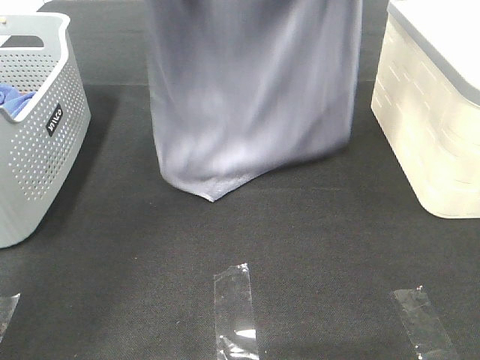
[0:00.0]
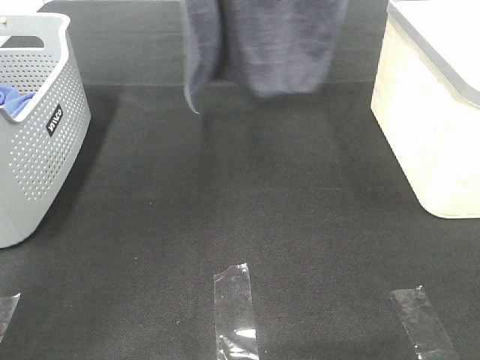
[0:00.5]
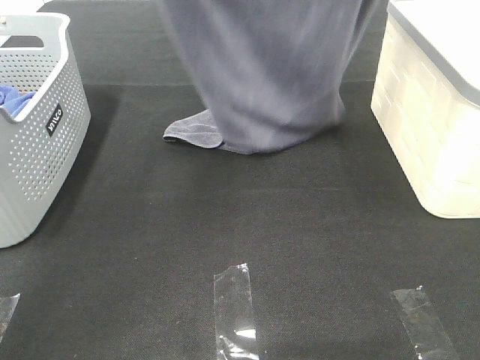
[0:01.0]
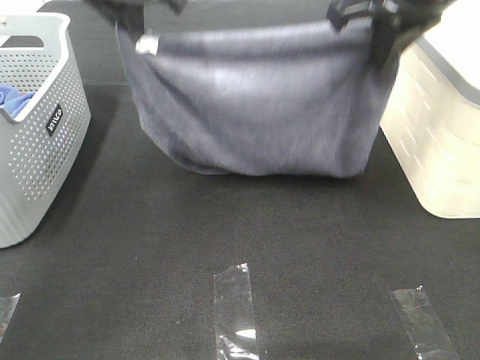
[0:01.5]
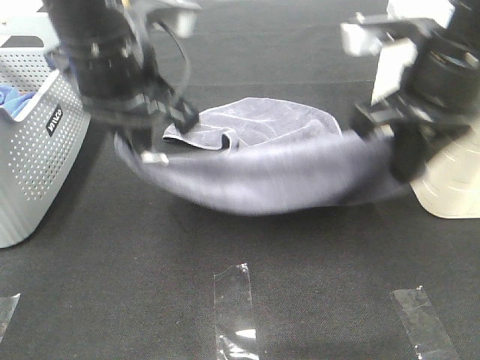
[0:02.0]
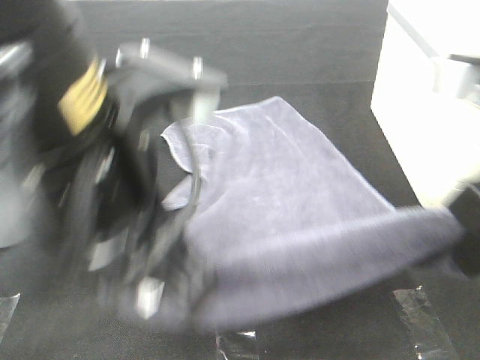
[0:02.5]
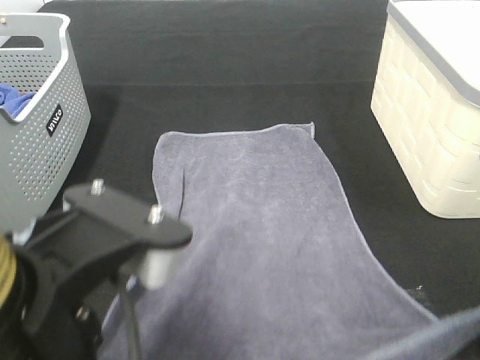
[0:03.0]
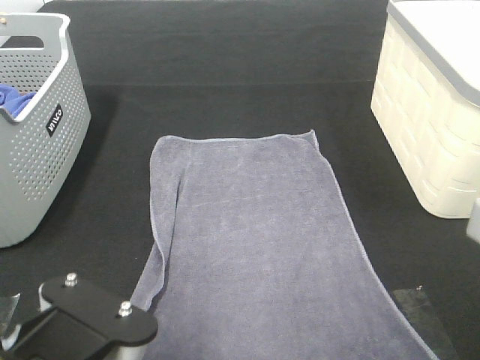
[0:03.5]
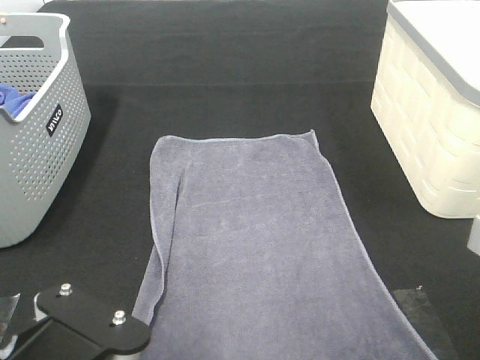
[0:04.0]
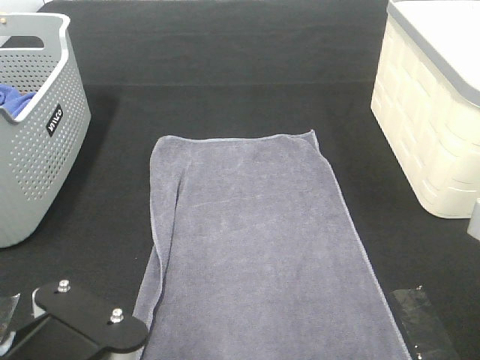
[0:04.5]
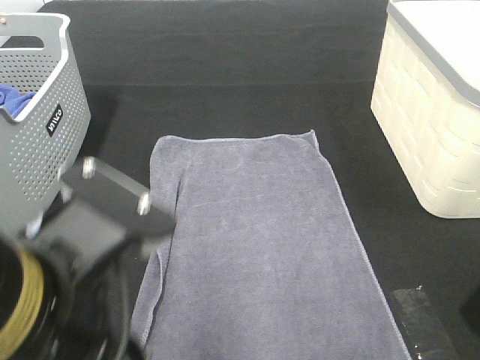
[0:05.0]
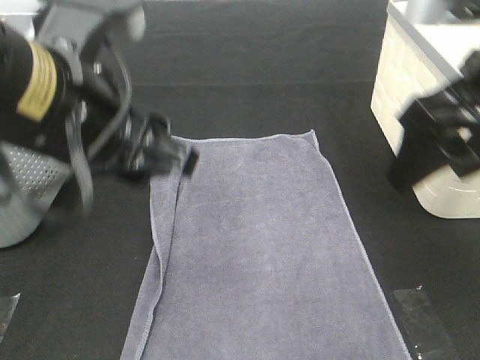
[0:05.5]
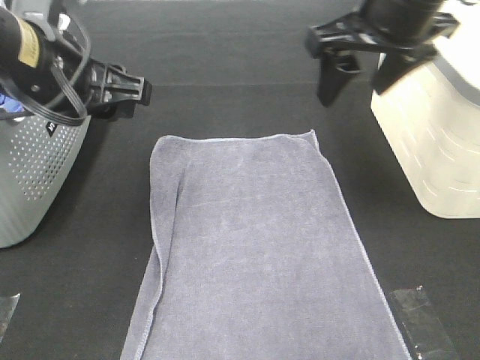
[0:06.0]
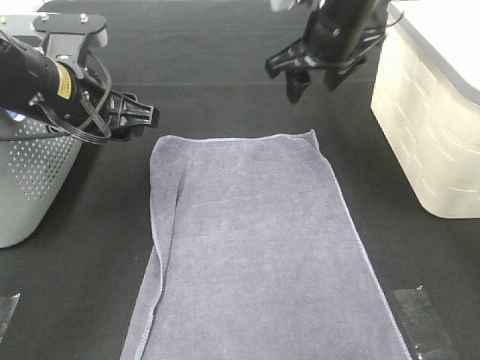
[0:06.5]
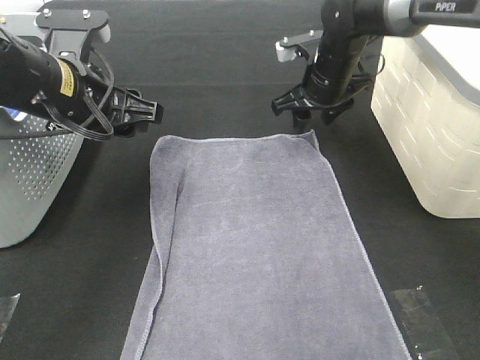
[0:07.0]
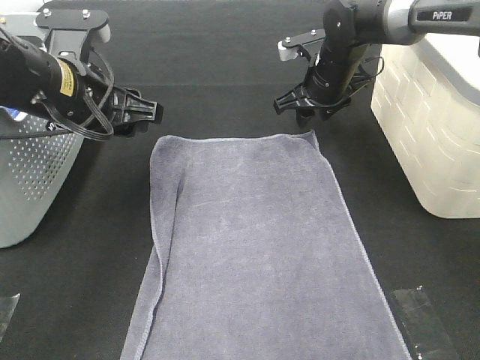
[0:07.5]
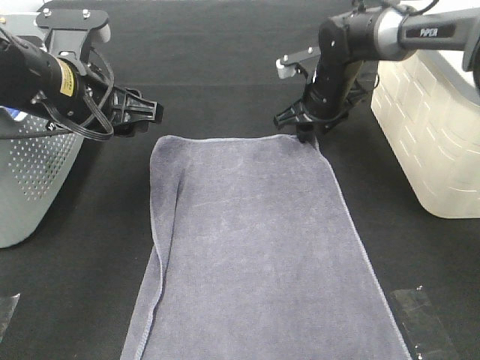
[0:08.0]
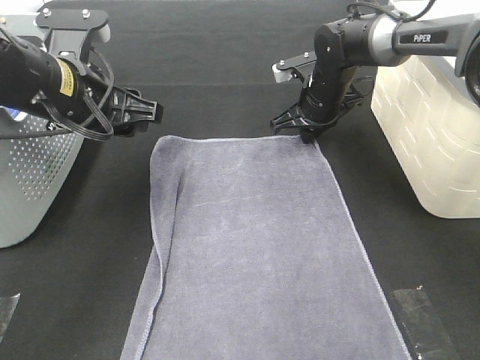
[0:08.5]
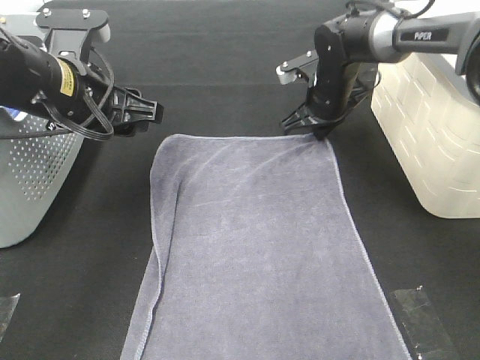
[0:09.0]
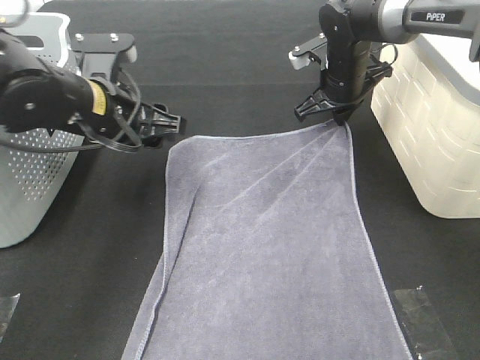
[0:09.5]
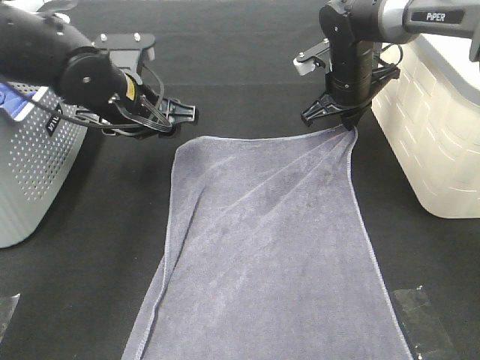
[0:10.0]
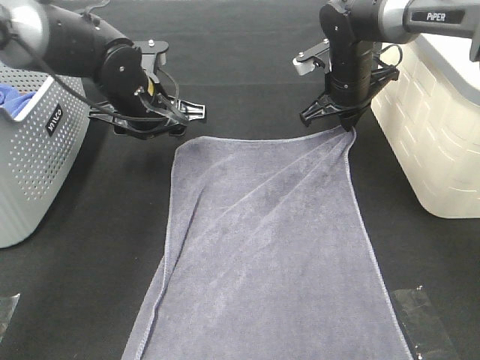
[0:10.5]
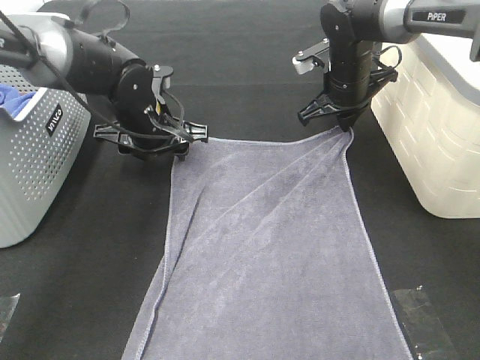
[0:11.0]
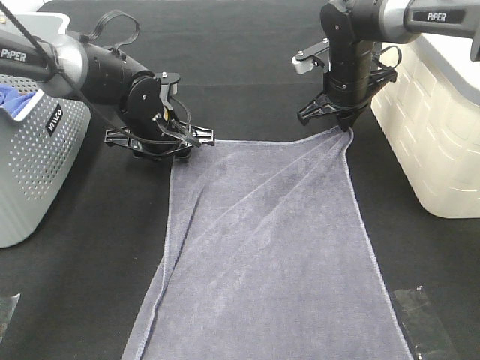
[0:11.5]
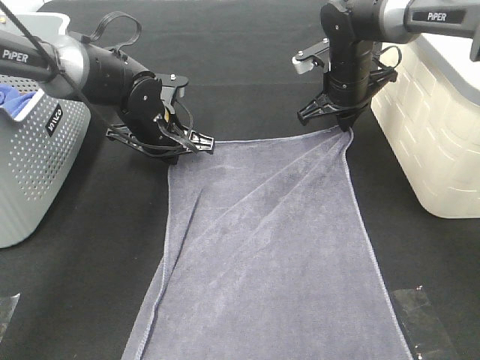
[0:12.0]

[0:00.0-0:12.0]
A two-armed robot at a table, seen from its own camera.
Task of the whole recording: Remove the towel and place it.
Step, 0:00.0 to 0:08.0: Left hand:adjust the gray towel.
Step, 0:00.0 to 0:08.0: Right hand:adjust the gray towel.
0:00.0 to 0:02.0: The grippers both shift backward and downward by approximately 20 cm.
0:02.0 to 0:04.0: The two grippers go about 20 cm backward.
0:04.0 to 0:06.0: Both grippers move forward, about 25 cm. The left gripper opens up. Meanwhile the right gripper opens up.
0:06.0 to 0:08.0: The left gripper ends up roughly 5 cm from where it was; the right gripper moves downward and forward, about 25 cm.
0:08.0 to 0:10.0: The left gripper moves forward and downward, roughly 10 cm. The right gripper closes up.
0:10.0 to 0:12.0: The left gripper is displaced downward by some 5 cm, and closes up.

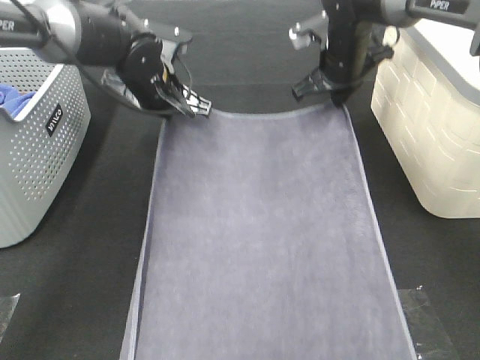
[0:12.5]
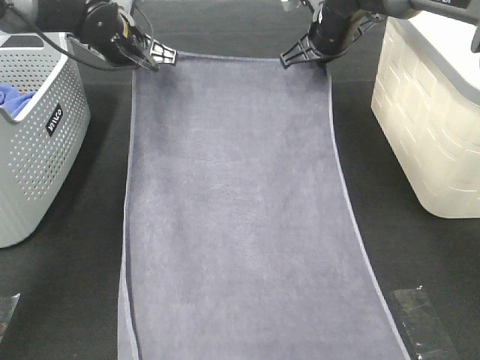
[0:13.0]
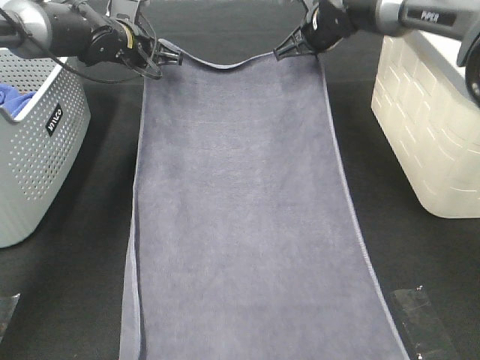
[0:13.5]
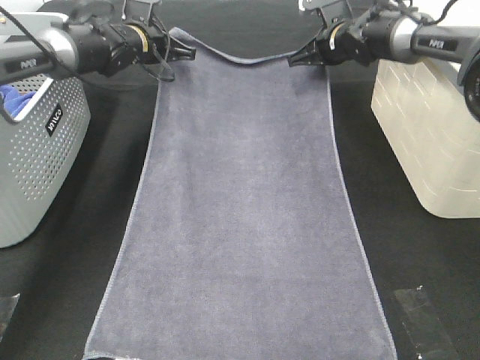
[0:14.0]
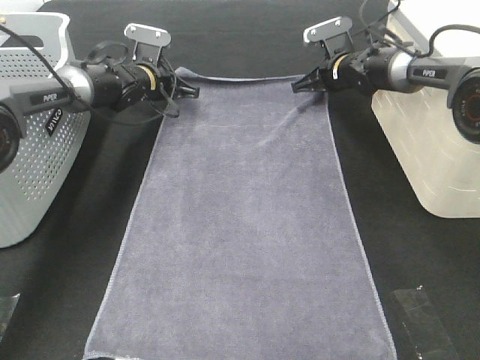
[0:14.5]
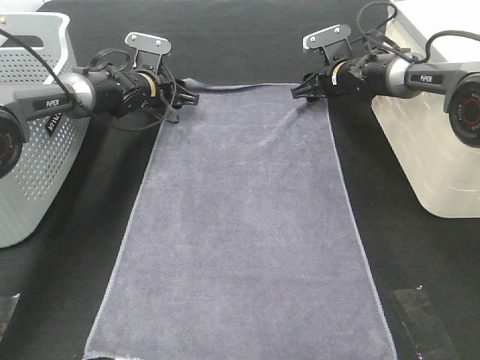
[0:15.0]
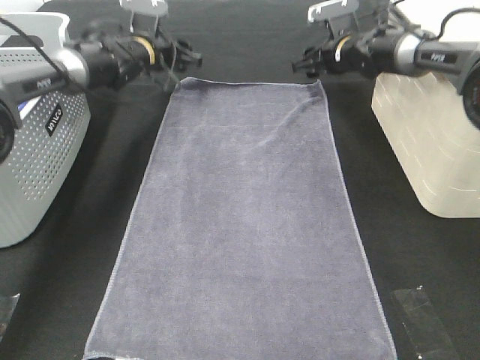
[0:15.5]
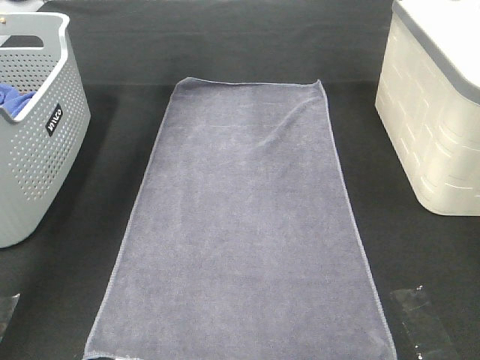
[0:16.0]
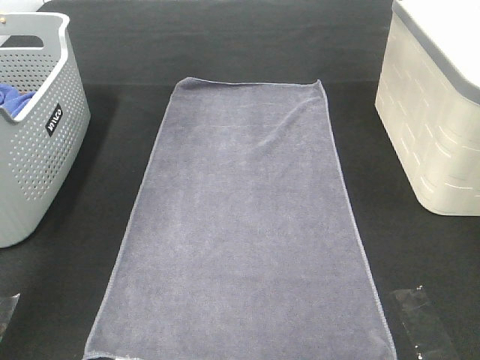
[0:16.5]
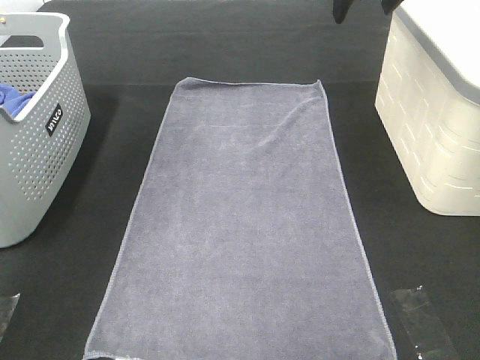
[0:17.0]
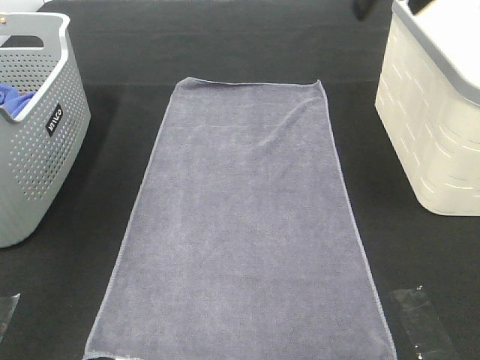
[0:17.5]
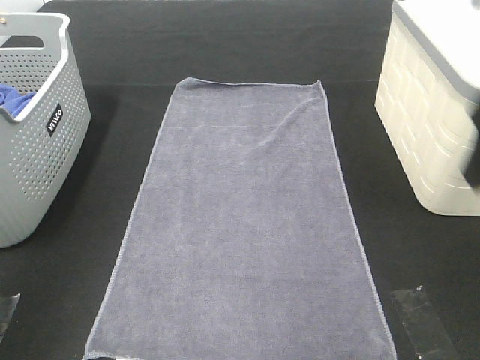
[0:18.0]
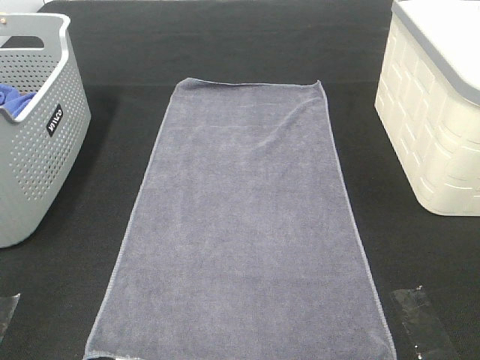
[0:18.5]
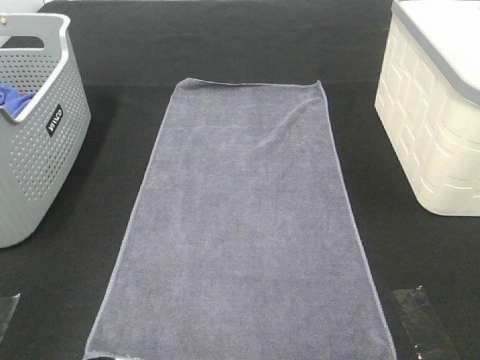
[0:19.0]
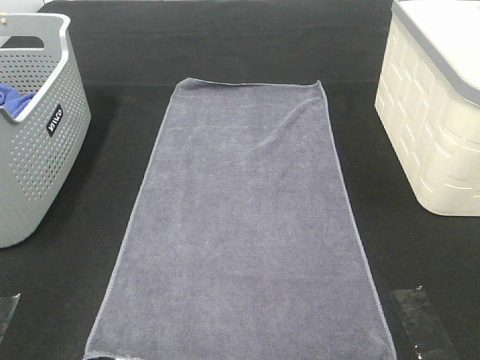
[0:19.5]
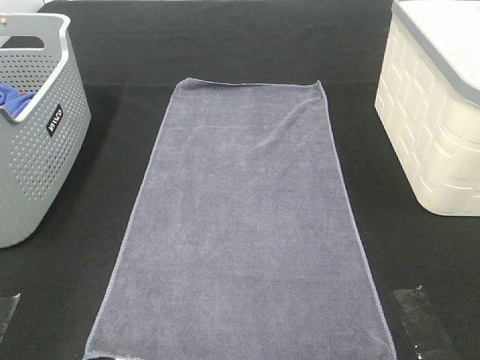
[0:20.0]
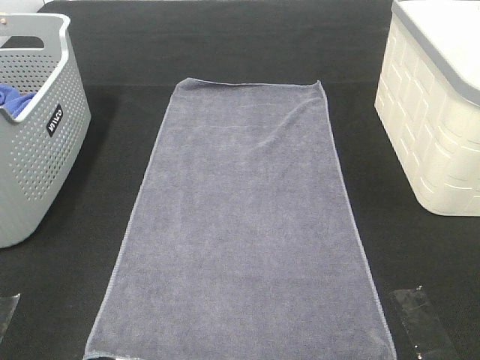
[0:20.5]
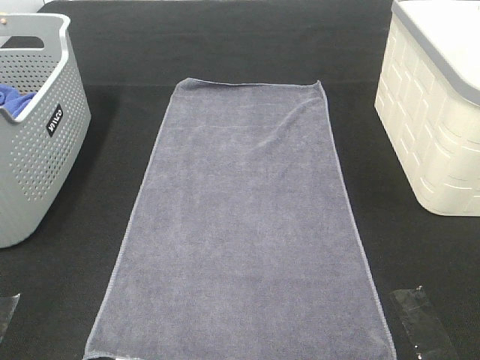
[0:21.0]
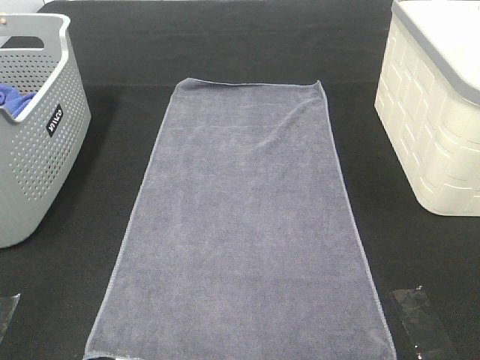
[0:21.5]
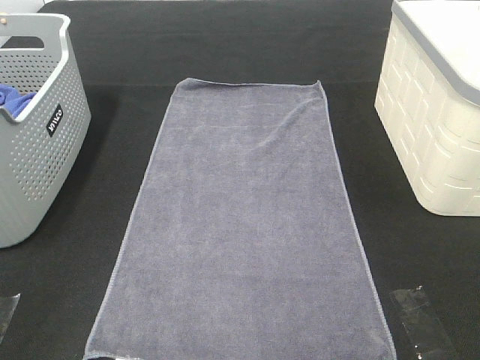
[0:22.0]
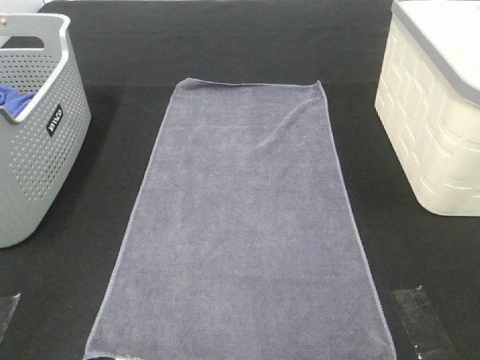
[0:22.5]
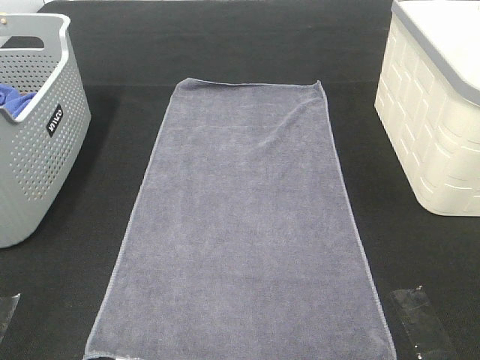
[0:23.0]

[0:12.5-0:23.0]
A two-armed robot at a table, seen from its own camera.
Task of the whole recording: Remove the towel and place it.
0:12.5 to 0:14.5: The right gripper heads downward and forward, covering roughly 10 cm; the left gripper moves forward and downward, about 15 cm.
0:14.5 to 0:16.5: Both grippers move upward, about 25 cm. The left gripper opens its fingers. The right gripper opens up.
0:16.5 to 0:19.0: The grippers both shift backward by approximately 50 cm.

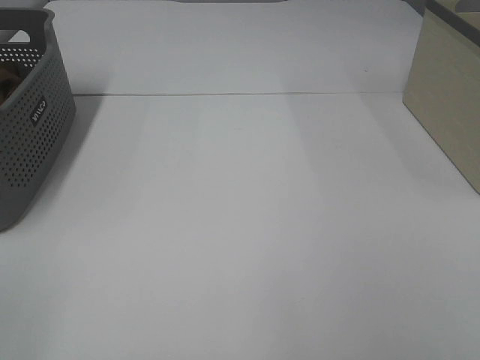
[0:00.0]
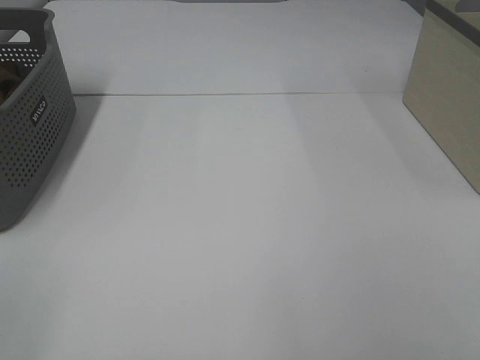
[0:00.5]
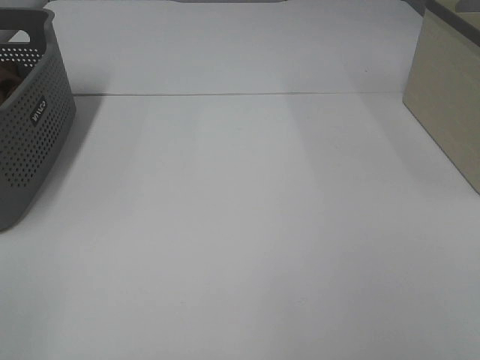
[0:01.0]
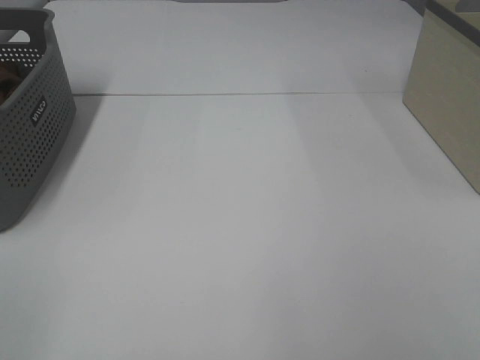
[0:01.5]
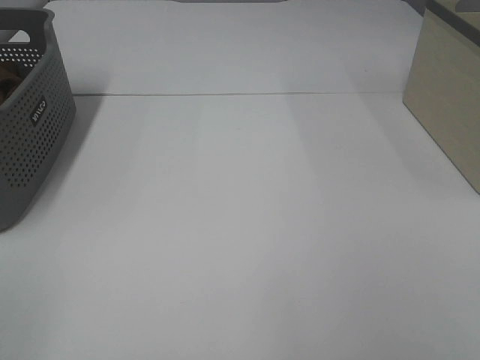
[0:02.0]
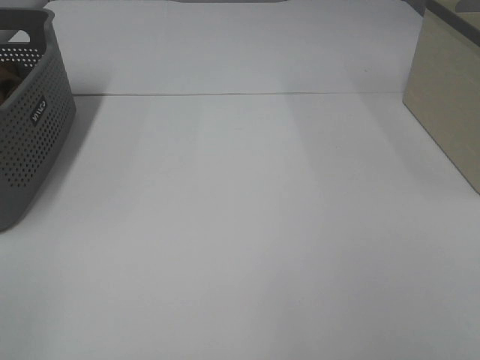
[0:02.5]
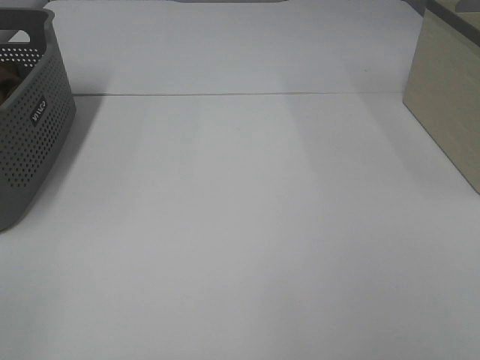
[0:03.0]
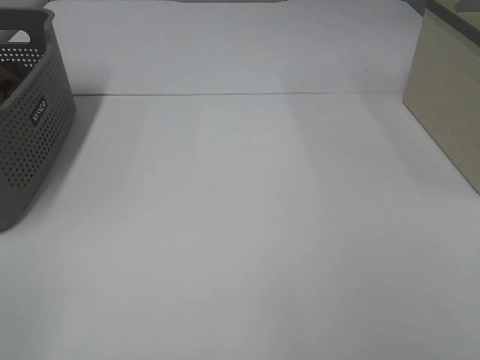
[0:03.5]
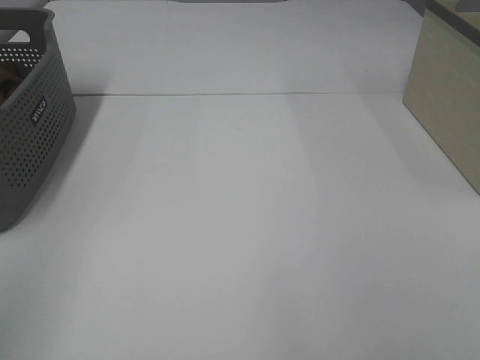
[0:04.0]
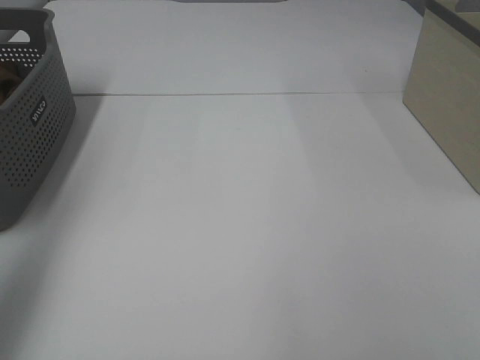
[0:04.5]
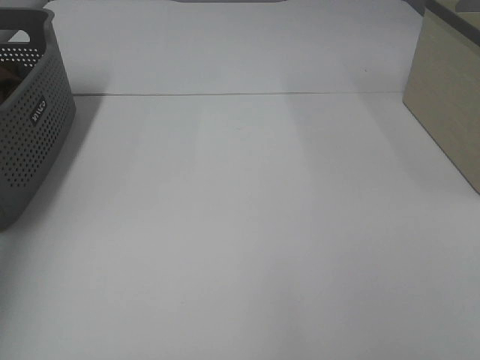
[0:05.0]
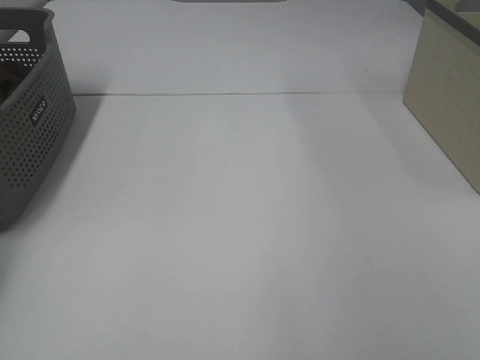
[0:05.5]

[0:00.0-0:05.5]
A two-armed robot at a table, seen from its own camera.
Task of the whole recording: Remove the towel and place it.
0:00.0 to 0:03.5: Both grippers stay put.
0:03.5 to 0:05.5: The left gripper is displaced forward by approximately 50 cm.
